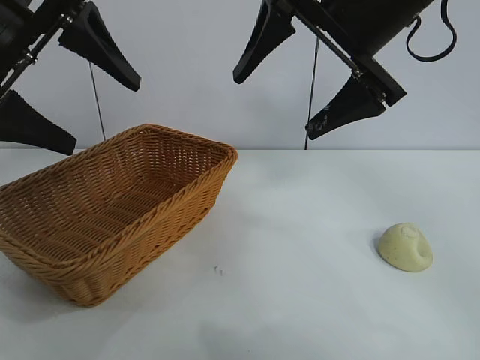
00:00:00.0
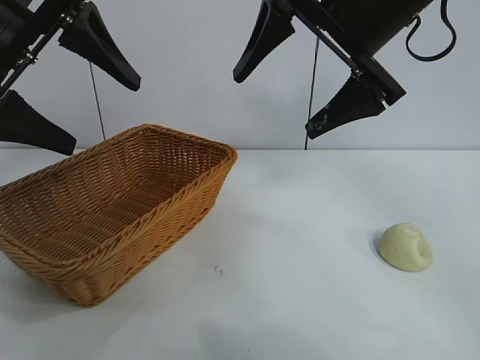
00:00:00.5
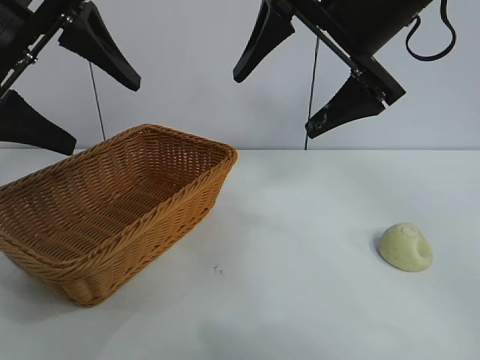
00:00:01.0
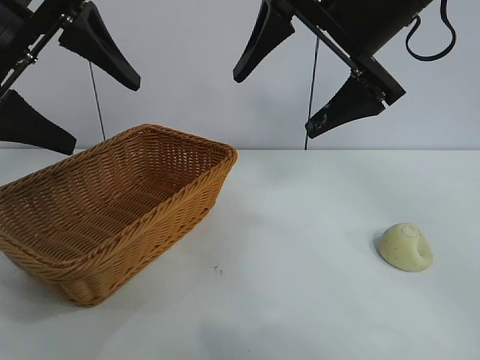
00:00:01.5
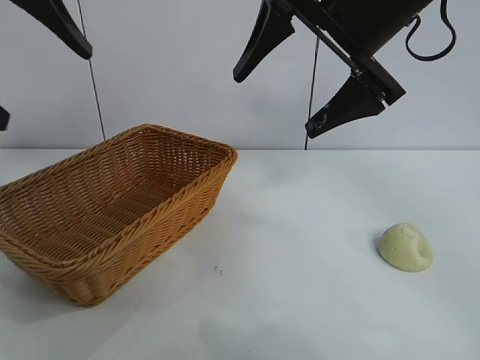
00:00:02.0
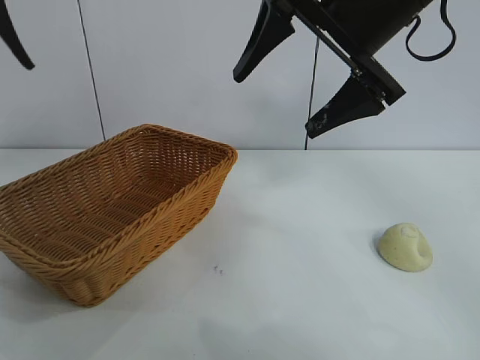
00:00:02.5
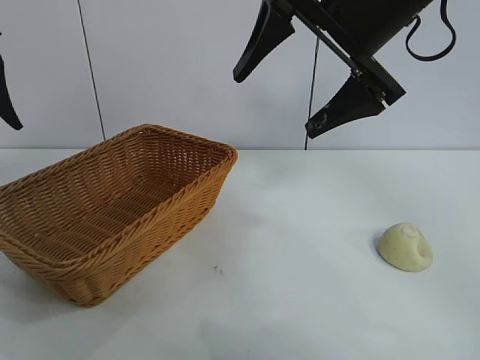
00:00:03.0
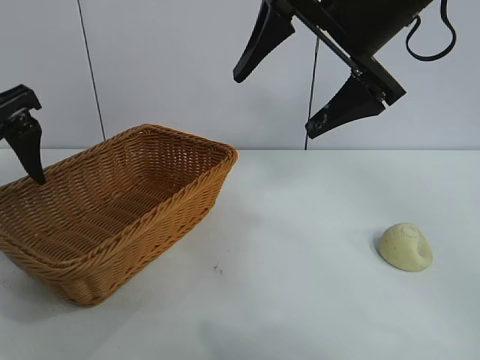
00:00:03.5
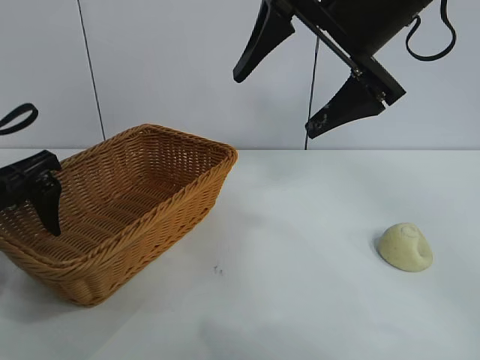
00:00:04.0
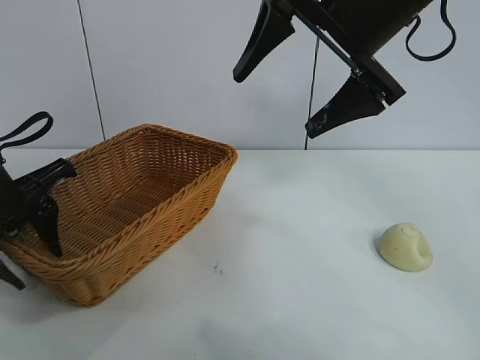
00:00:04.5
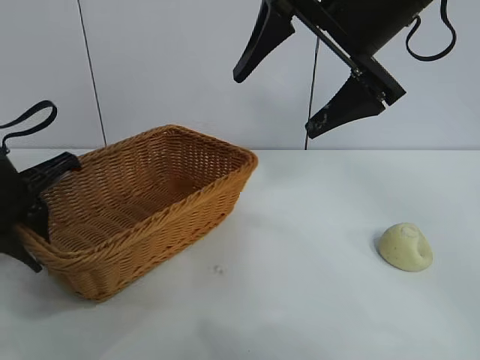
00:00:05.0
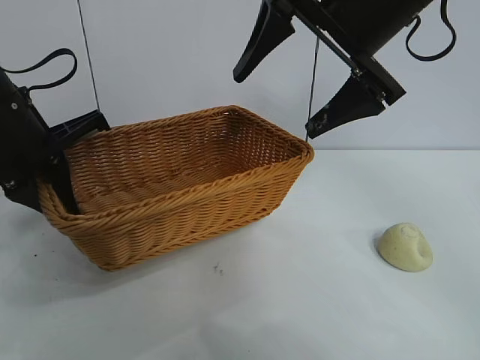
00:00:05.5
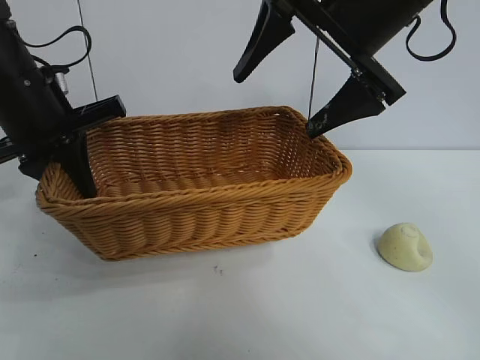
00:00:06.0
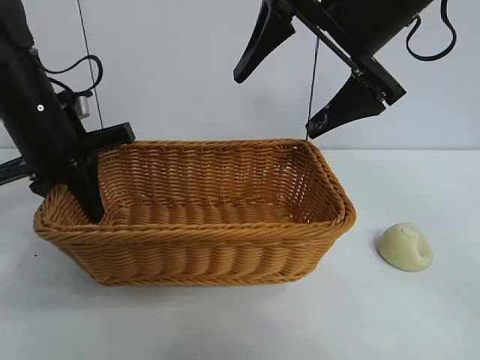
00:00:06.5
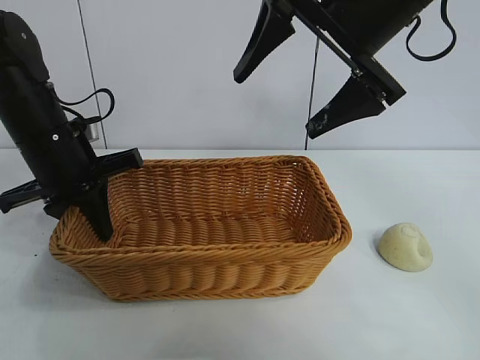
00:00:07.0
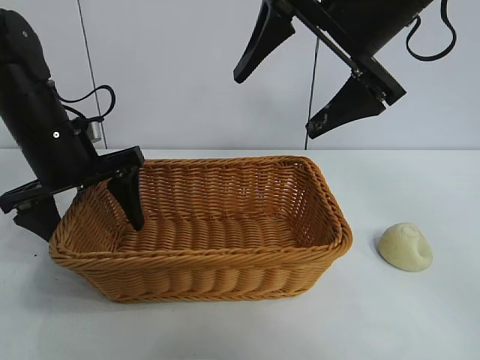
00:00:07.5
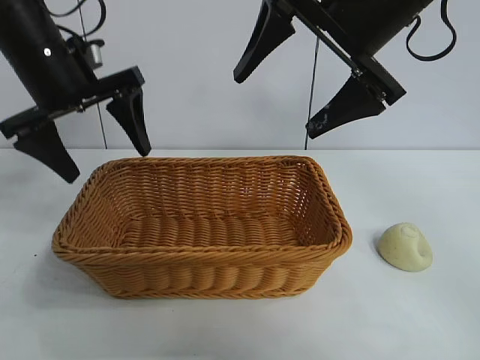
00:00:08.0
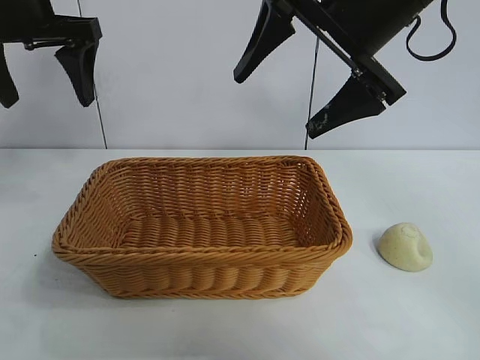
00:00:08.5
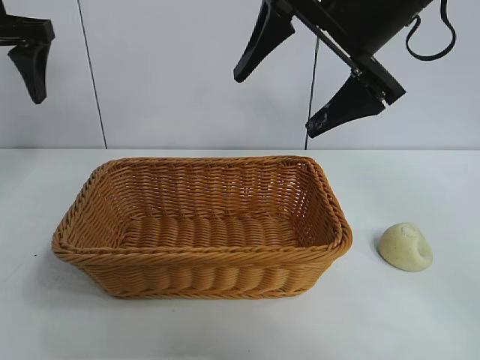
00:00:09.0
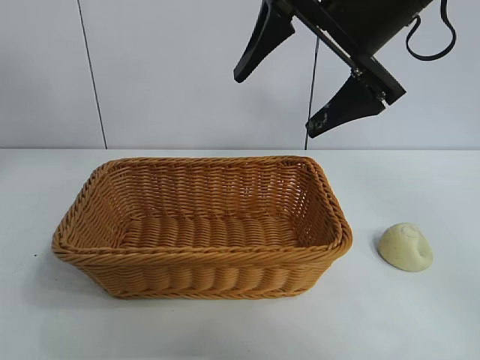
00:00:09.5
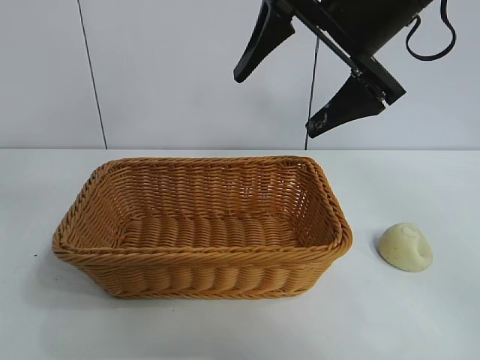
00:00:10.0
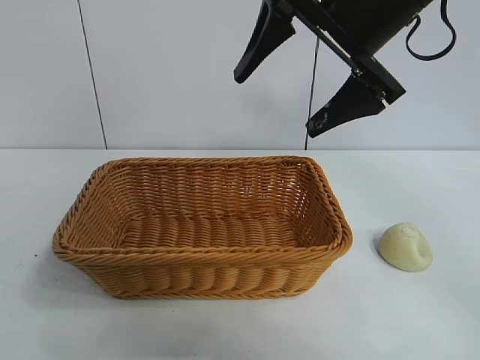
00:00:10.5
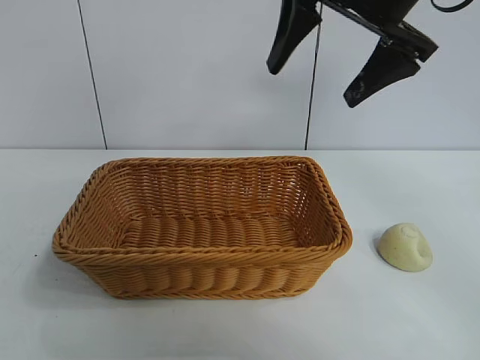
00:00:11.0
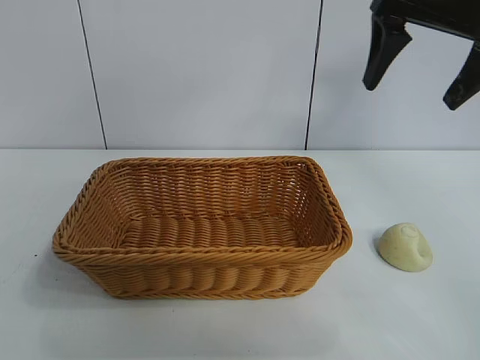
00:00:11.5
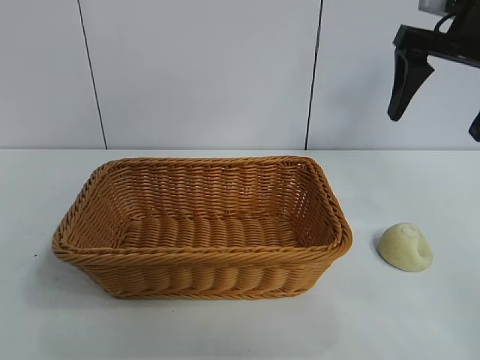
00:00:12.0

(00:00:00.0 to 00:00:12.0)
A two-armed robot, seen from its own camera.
Task of the whole recording: pick up the egg yolk pastry and put it into the basket.
Step, 00:00:01.5 - 00:00:06.0: Grasp the basket with left gripper.
Step, 00:00:06.5 - 00:00:07.0: Place the basket in the center of view with left gripper.

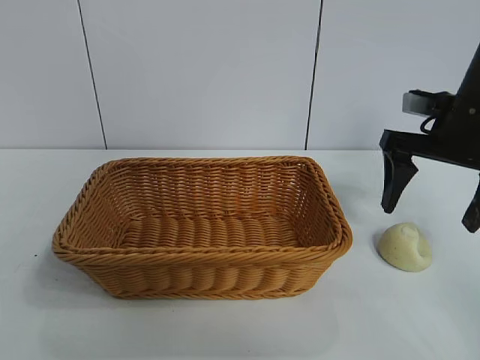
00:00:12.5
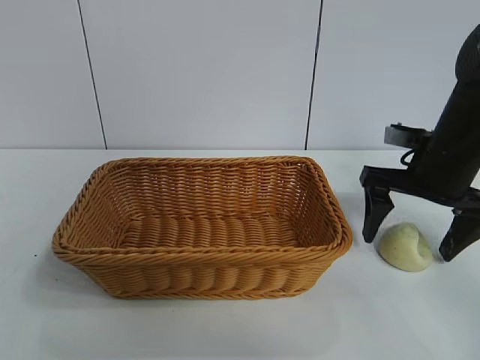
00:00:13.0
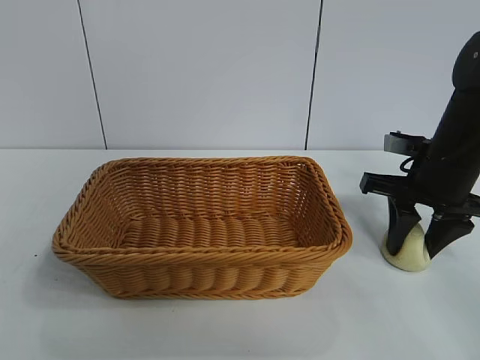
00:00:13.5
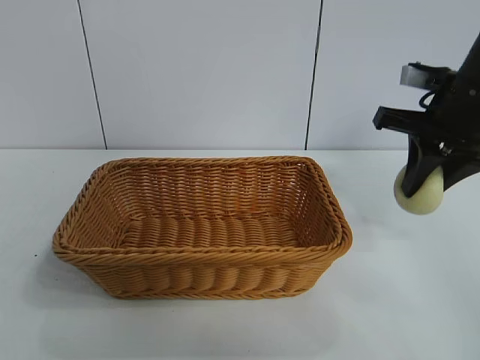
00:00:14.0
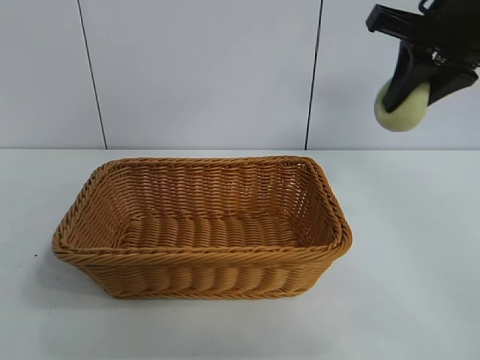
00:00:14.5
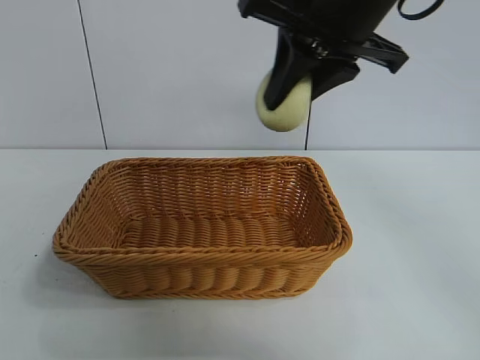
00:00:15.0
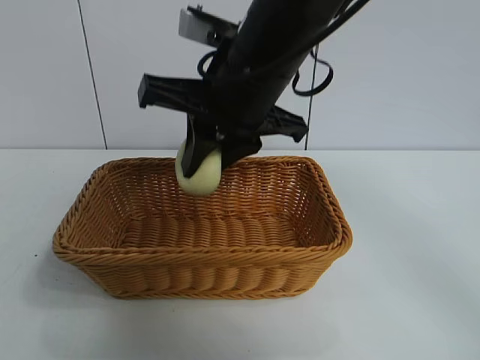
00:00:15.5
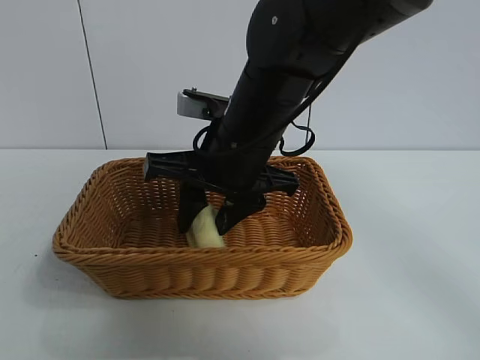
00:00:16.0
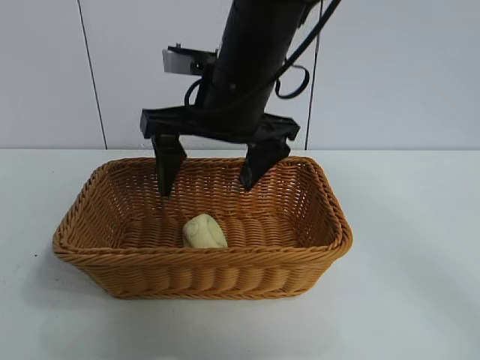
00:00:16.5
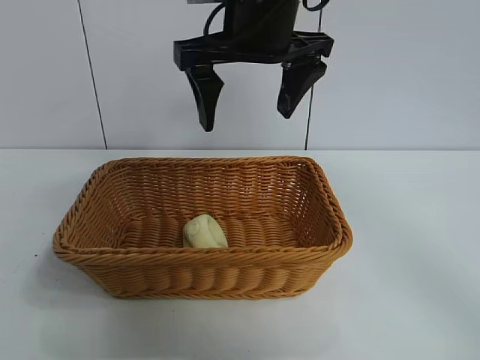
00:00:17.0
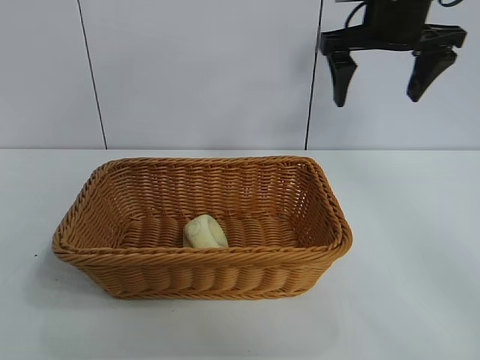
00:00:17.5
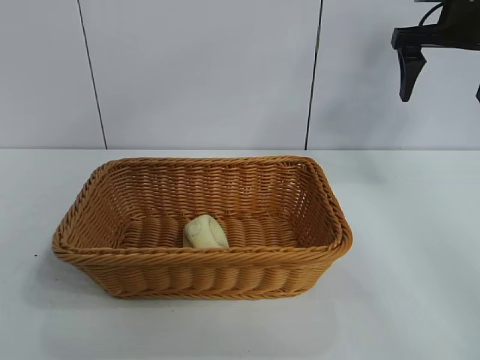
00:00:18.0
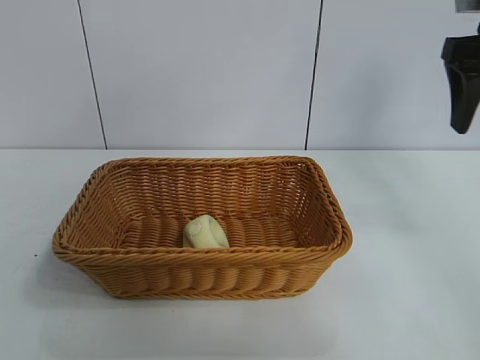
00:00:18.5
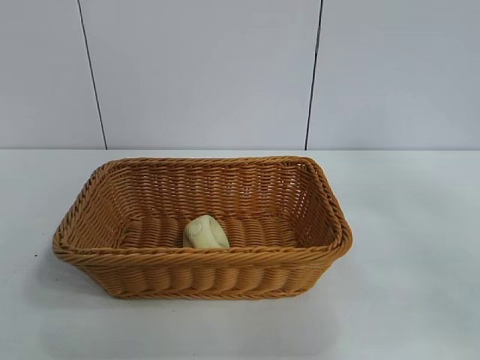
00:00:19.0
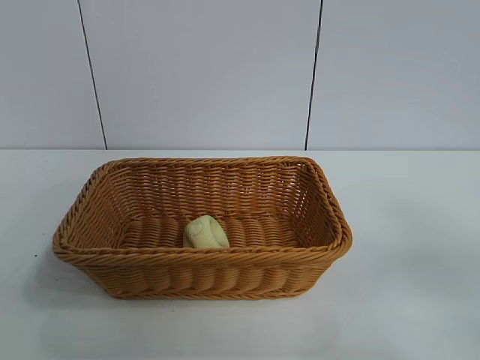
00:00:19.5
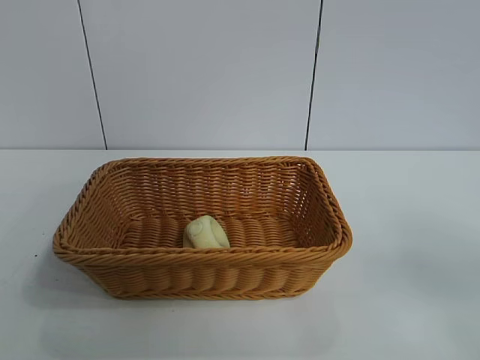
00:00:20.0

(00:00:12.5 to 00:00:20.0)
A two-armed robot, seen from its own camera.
Task of the whole recording: pick up the egg yolk pastry and put it into the basket.
Step, 00:00:14.0 - 00:00:16.0: Place the egg yolk pastry in the basket with right gripper.

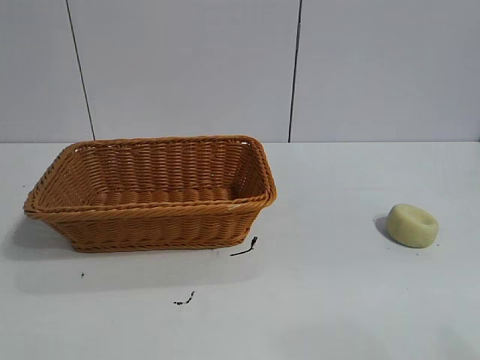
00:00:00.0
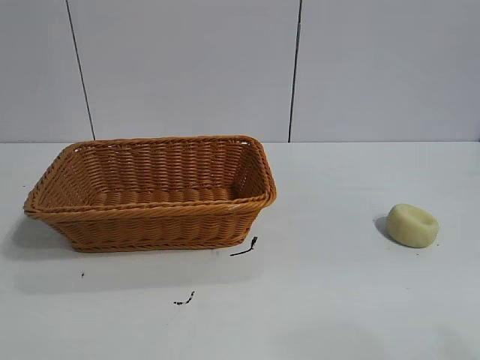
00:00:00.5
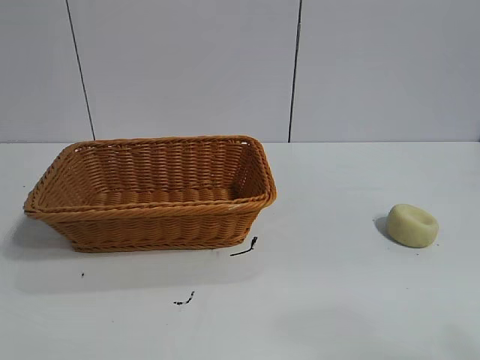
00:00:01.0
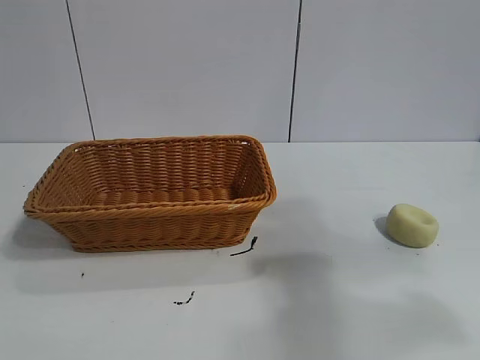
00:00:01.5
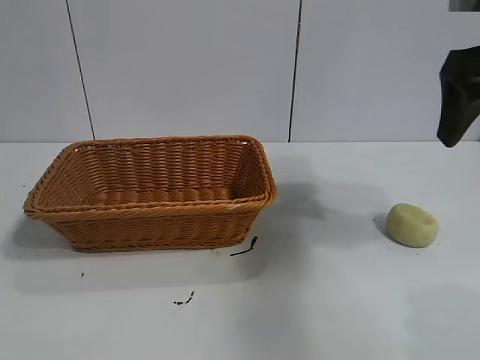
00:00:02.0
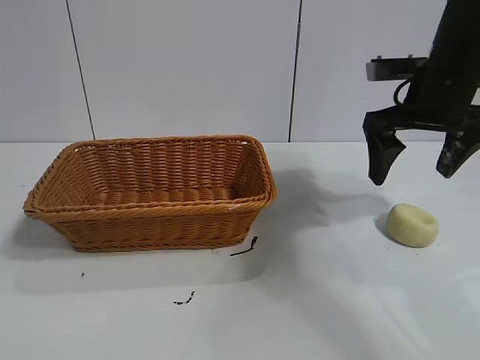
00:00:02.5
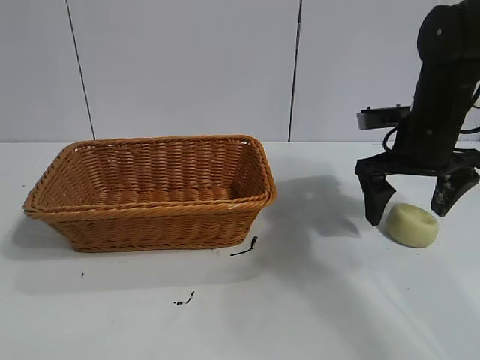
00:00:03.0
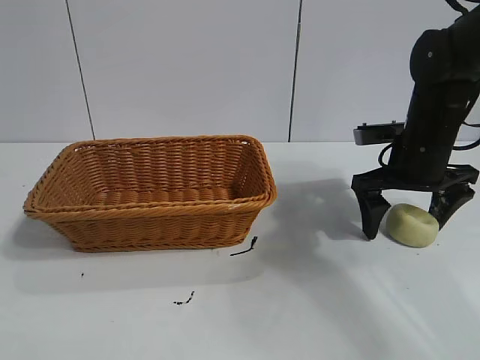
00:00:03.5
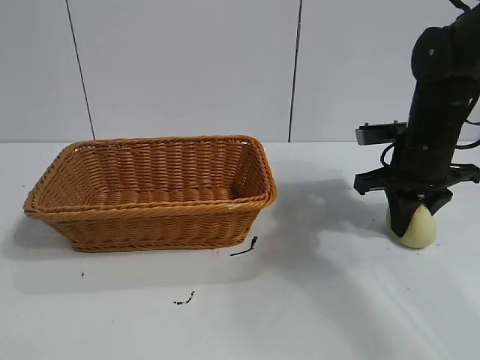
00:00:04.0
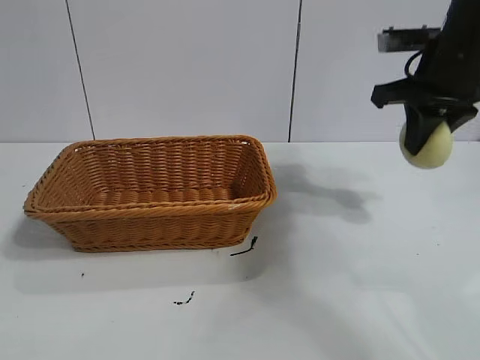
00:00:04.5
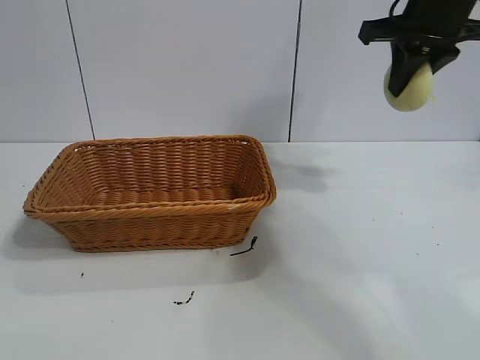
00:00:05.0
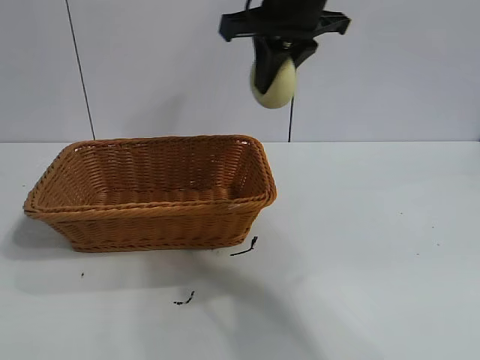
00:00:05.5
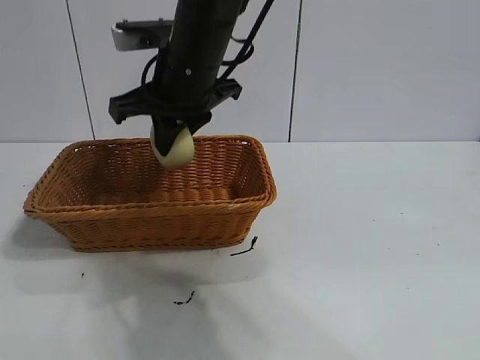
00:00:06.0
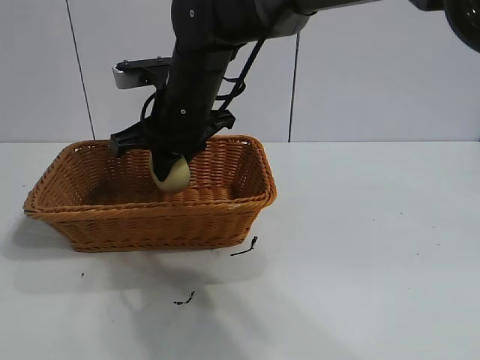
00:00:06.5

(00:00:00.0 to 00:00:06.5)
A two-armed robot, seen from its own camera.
Task of the whole recording: pick up the egg yolk pastry and put it into the basket.
Step, 00:00:01.0 - 00:00:03.5: Grasp egg yolk pastry with right gripper.
